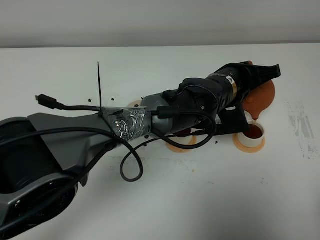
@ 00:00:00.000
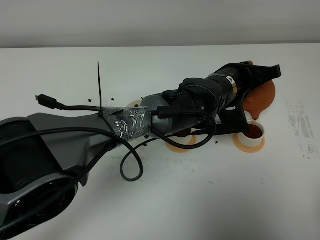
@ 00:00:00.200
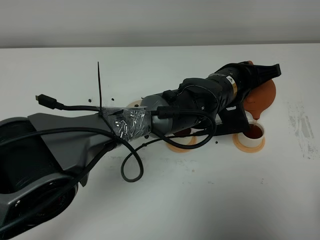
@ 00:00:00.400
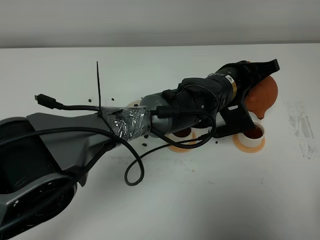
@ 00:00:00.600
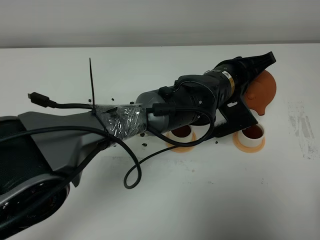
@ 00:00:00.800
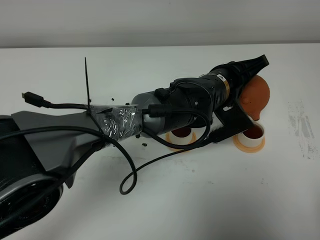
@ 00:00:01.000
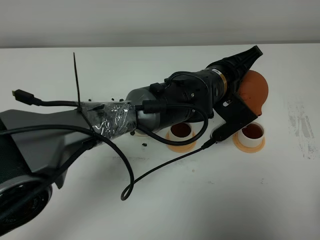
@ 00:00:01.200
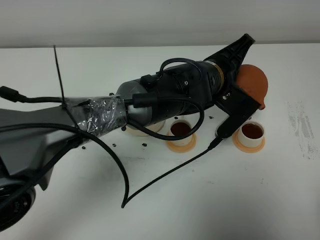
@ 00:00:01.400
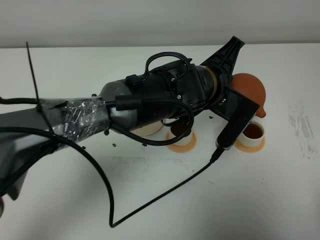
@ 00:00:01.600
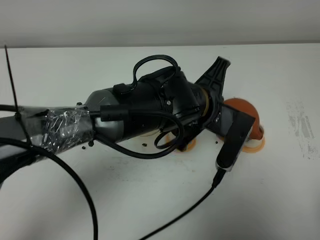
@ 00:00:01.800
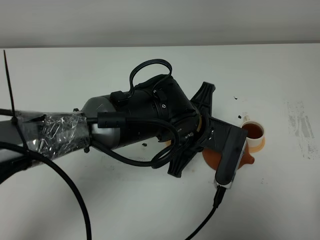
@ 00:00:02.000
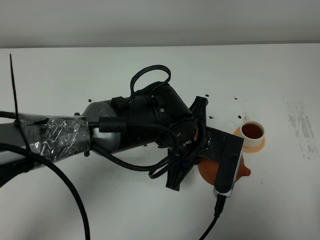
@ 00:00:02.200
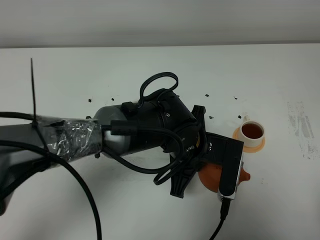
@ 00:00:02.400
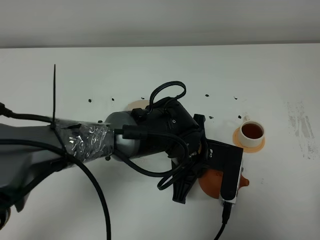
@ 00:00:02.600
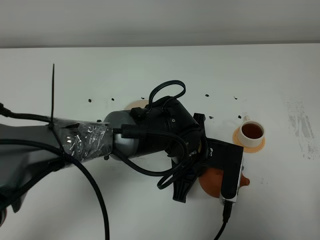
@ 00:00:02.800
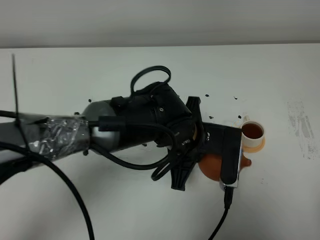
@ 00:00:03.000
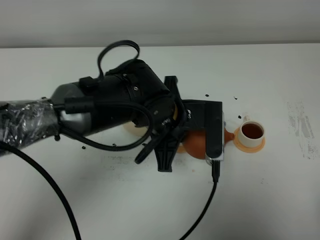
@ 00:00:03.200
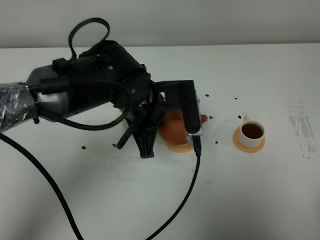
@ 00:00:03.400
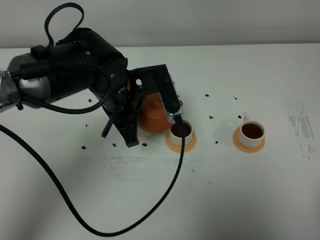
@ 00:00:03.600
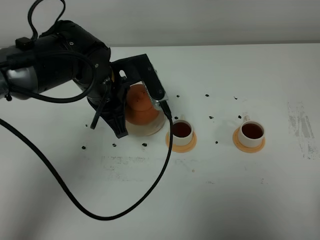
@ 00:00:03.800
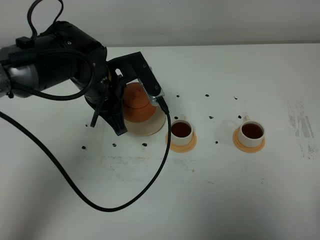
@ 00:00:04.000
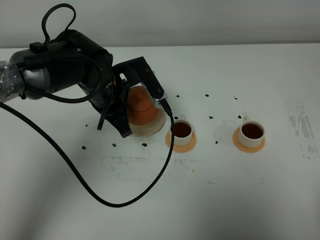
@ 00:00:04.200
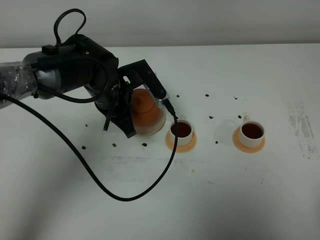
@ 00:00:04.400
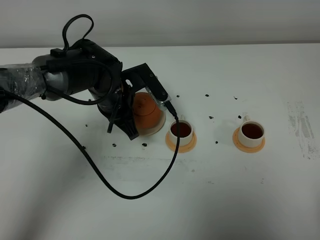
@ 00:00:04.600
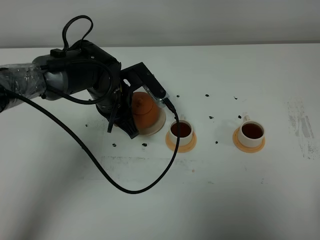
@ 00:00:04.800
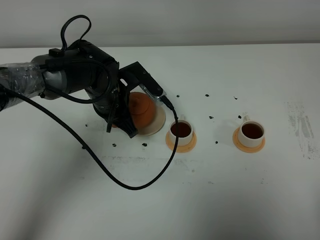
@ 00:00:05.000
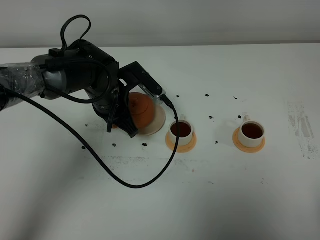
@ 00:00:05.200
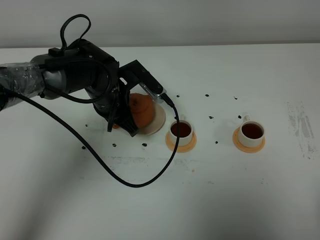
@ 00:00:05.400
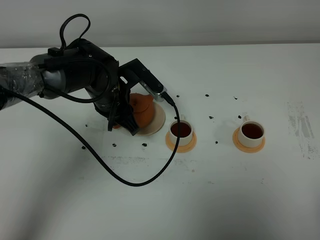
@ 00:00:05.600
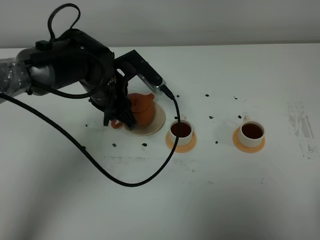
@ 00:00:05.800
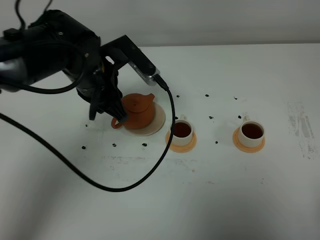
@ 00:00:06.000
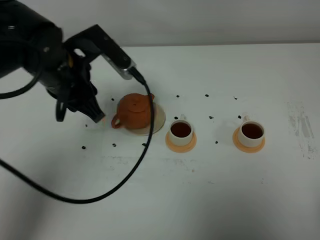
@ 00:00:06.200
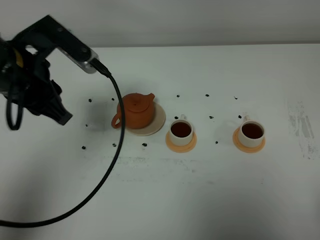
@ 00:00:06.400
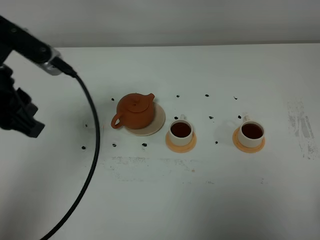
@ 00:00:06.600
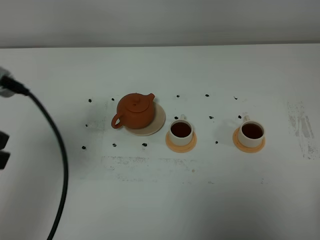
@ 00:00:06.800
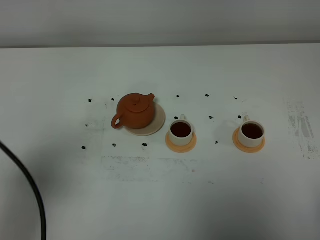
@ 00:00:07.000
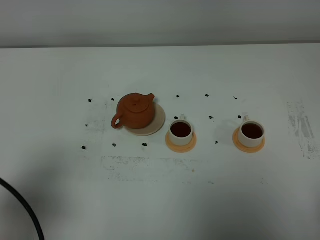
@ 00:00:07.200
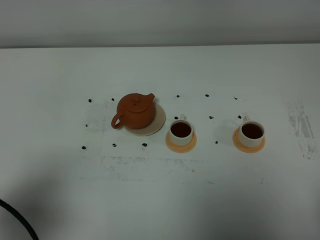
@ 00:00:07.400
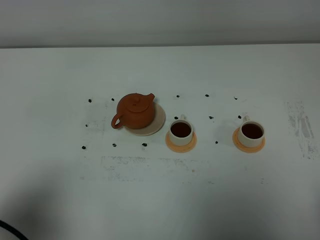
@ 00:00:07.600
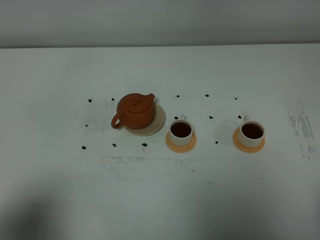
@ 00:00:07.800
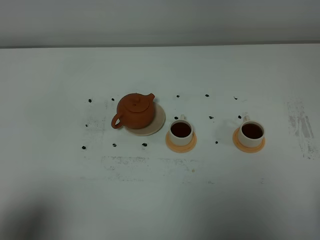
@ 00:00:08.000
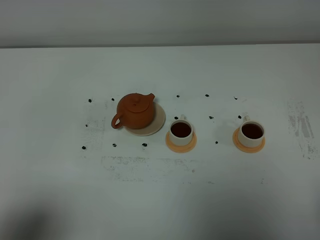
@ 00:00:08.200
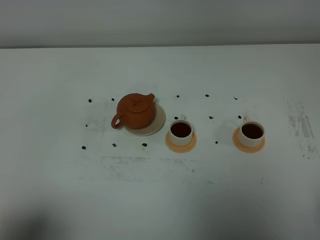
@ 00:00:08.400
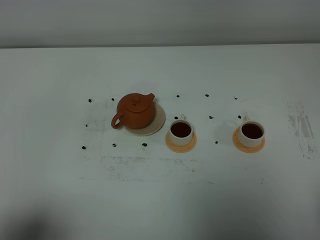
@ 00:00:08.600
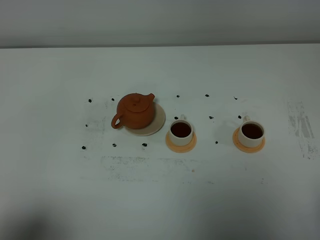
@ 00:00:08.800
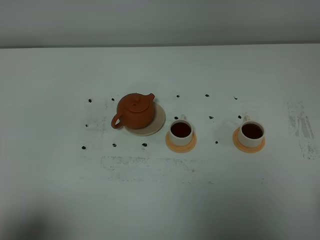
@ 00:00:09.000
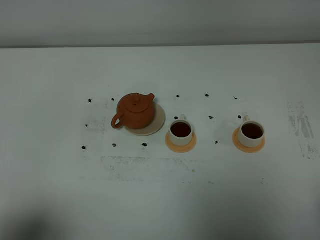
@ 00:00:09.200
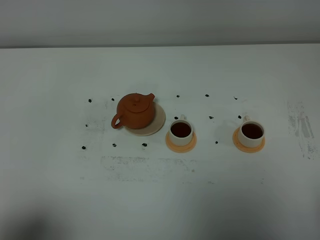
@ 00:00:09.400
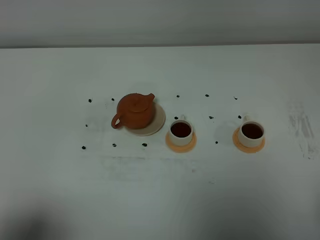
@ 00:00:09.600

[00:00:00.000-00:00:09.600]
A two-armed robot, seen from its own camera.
Task of the whole recording: grasp the brown teapot and pour the tea into the two white teacups one by one, put the brown teapot back in its original place.
00:00:00.000 to 00:00:01.600: The left gripper moves upward, about 5 cm.
00:00:01.600 to 00:00:03.200: The left gripper travels to the left by some 5 cm, and goes downward and returns, approximately 10 cm each way.
00:00:03.200 to 00:00:04.800: The left gripper heads to the left, forward and downward, covering roughly 15 cm.
00:00:04.800 to 00:00:06.400: The left gripper travels upward, backward and to the left by roughly 20 cm, and opens up.
00:00:06.400 to 00:00:08.000: The left gripper goes some 25 cm backward.
